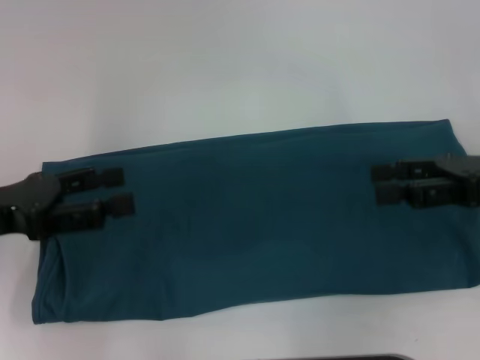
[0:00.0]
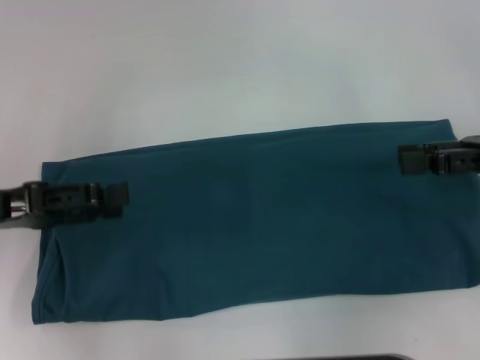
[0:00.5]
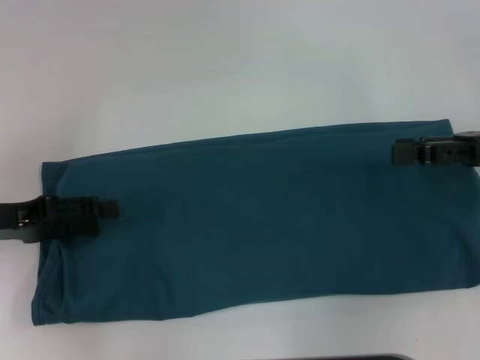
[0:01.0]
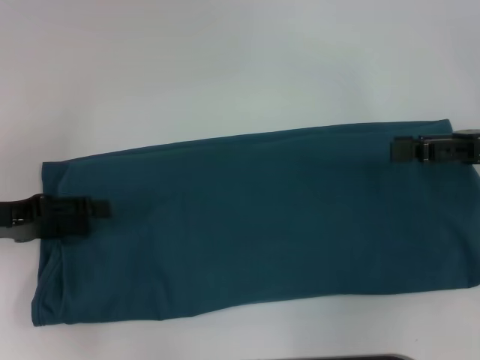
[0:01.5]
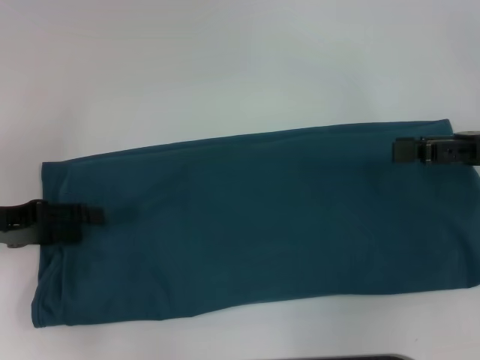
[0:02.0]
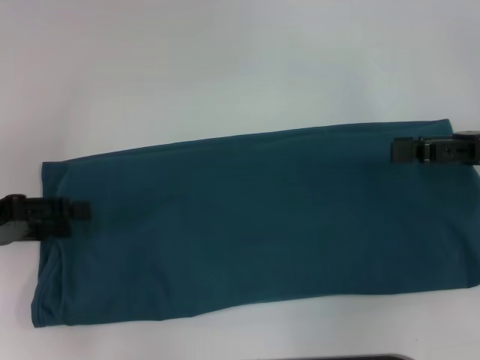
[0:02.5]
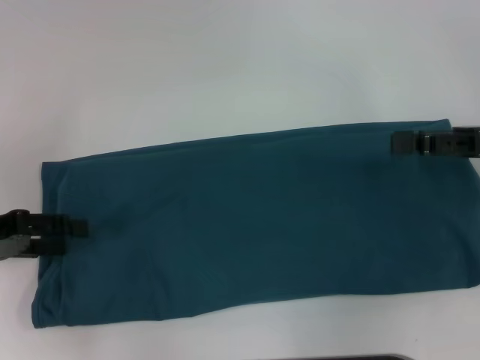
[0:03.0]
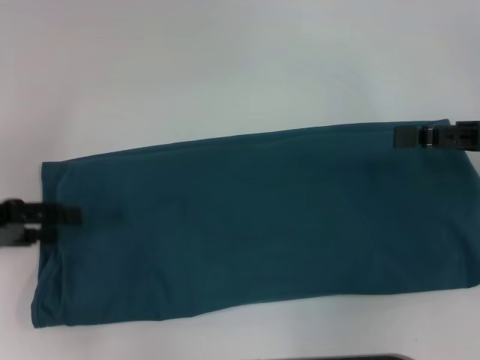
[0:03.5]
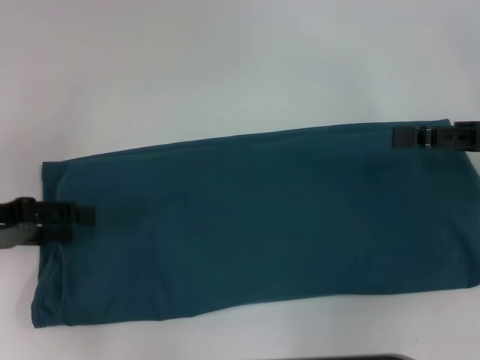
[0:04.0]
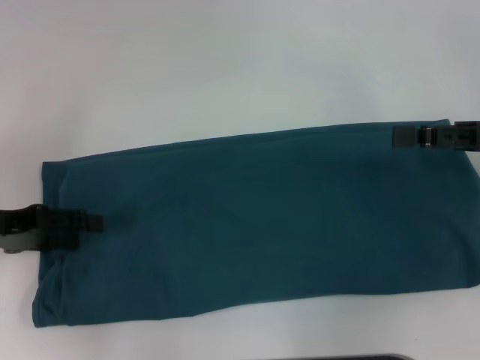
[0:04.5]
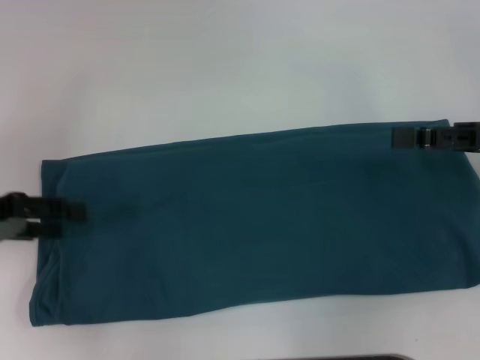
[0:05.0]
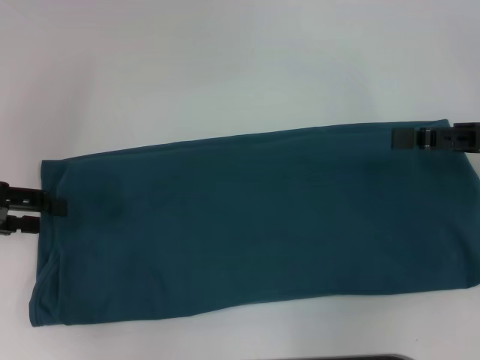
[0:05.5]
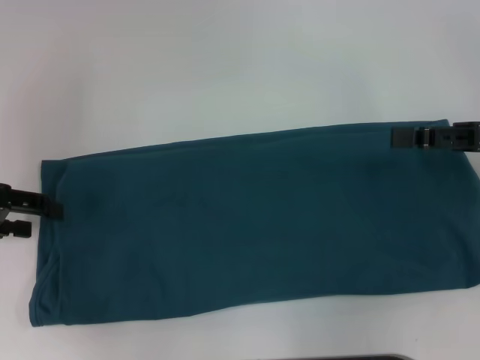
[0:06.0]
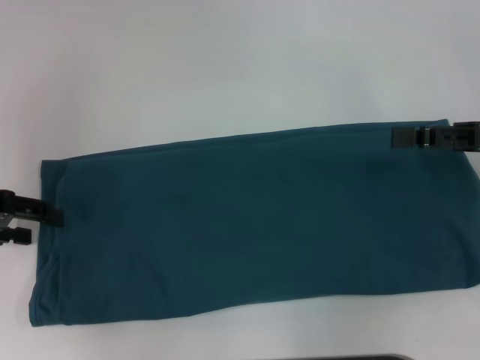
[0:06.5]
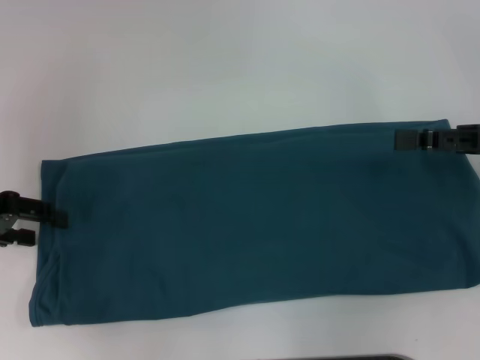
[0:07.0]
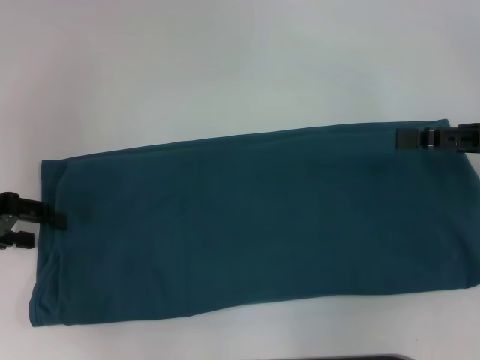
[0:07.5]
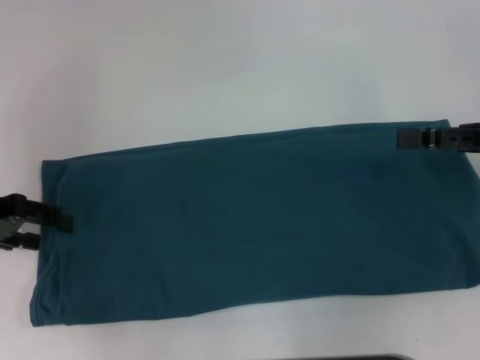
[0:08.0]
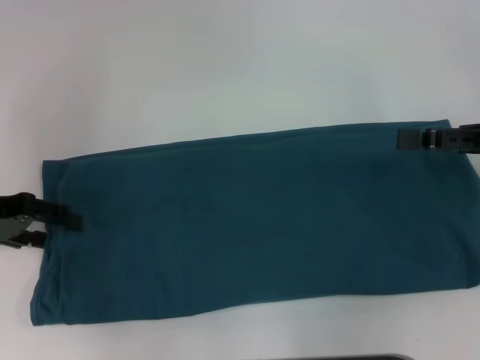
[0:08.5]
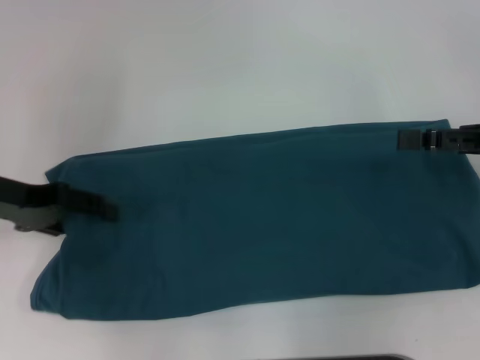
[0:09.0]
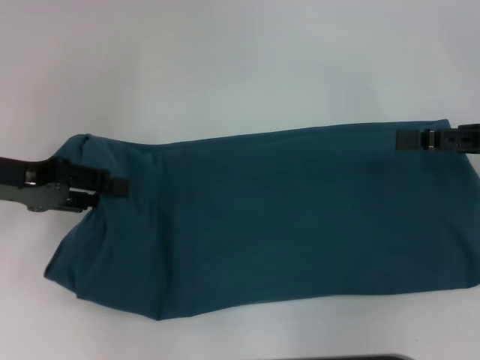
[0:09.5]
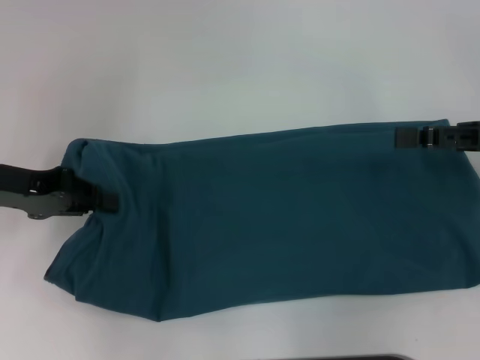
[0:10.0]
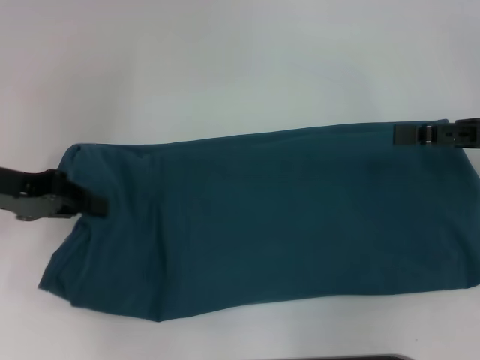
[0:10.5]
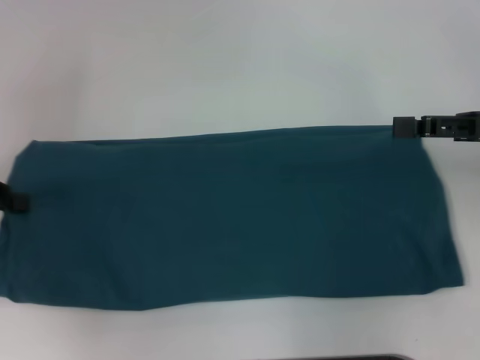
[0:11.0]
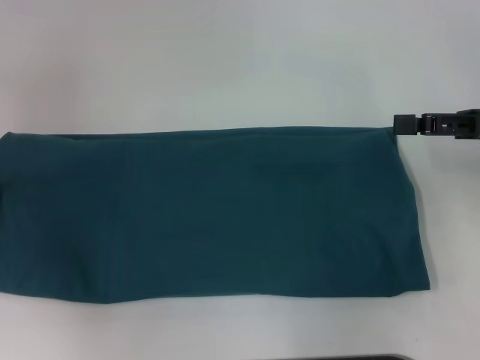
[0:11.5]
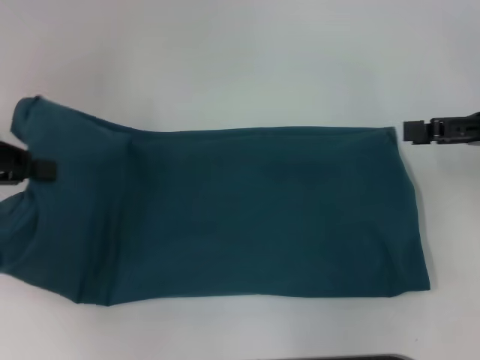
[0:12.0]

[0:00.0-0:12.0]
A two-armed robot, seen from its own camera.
0:00.0 to 0:02.0: The left gripper shifts by about 5 cm.
0:02.0 to 0:08.0: There are only small adjustments of the grippers.
0:08.0 to 0:10.0: The left gripper closes.
0:10.0 to 0:12.0: The left gripper moves upward, roughly 5 cm.

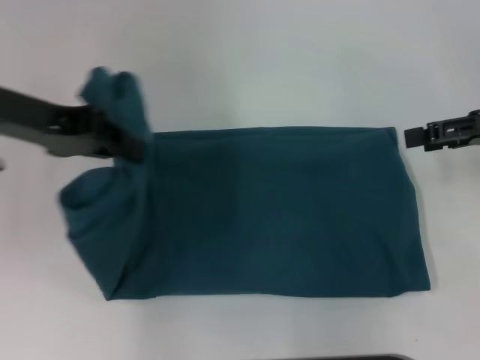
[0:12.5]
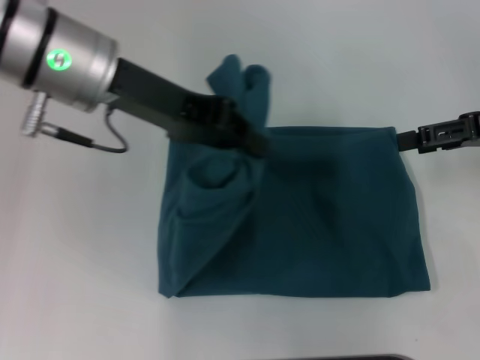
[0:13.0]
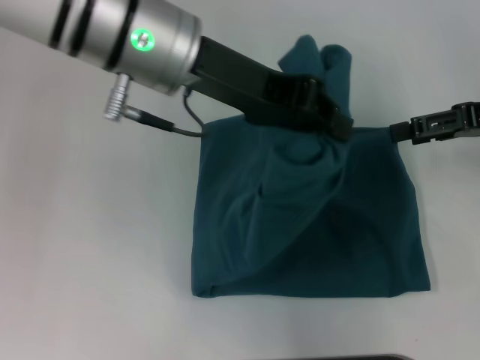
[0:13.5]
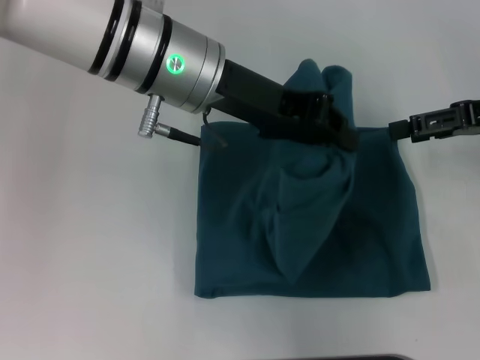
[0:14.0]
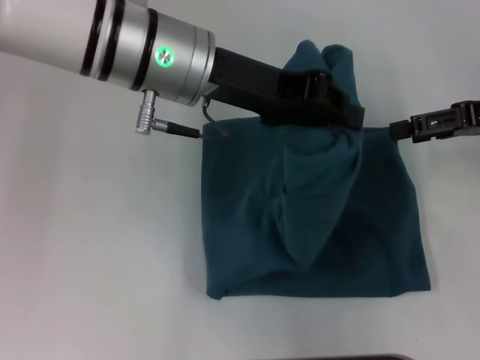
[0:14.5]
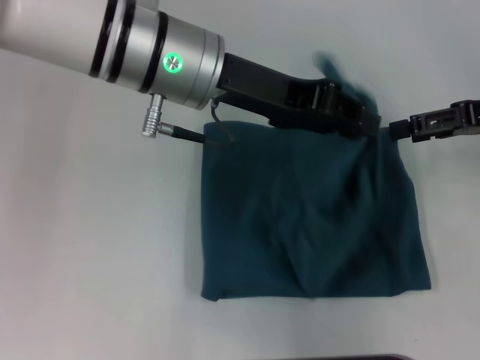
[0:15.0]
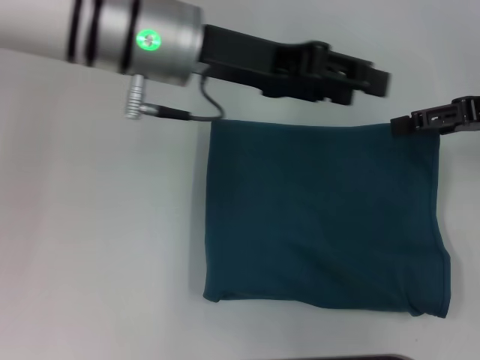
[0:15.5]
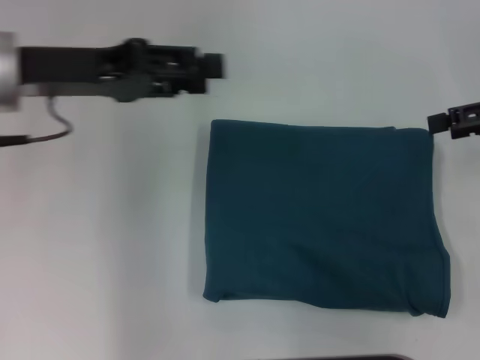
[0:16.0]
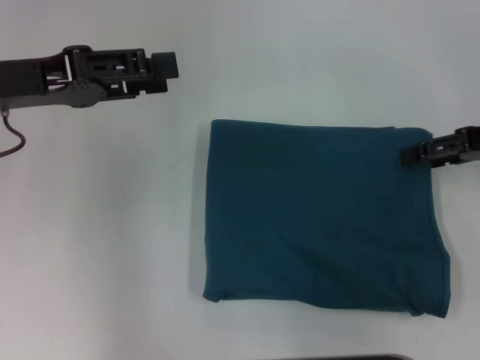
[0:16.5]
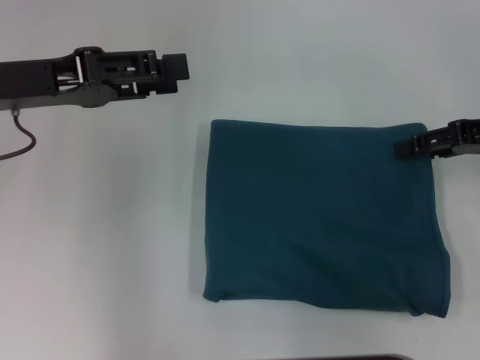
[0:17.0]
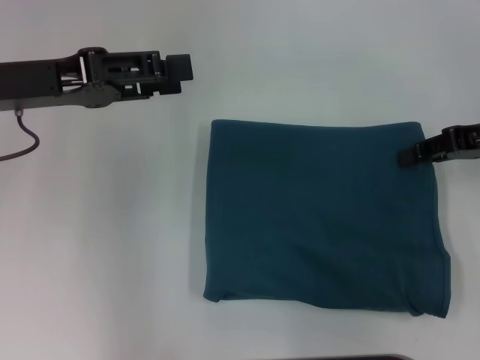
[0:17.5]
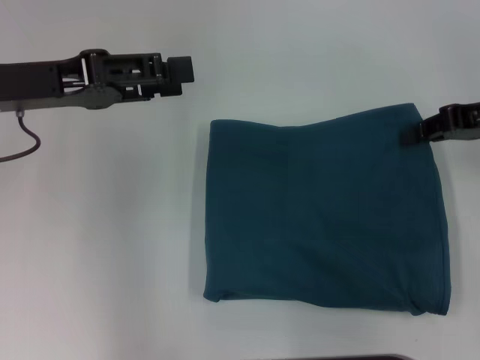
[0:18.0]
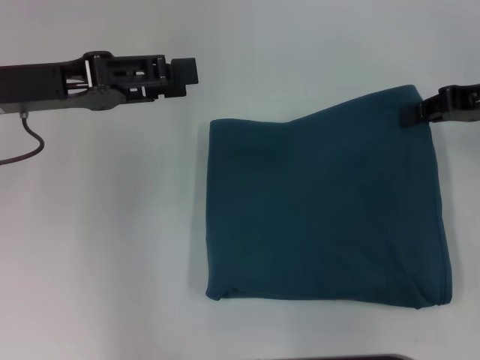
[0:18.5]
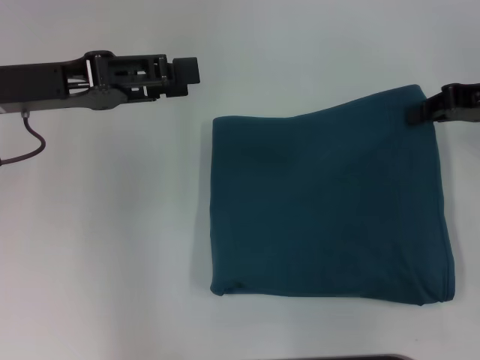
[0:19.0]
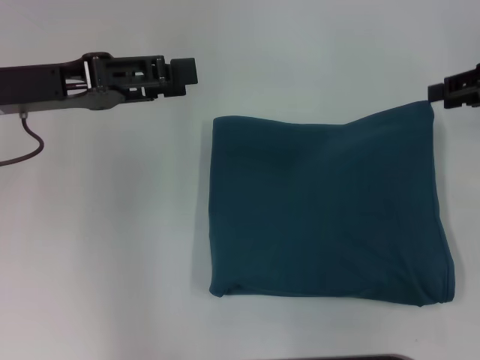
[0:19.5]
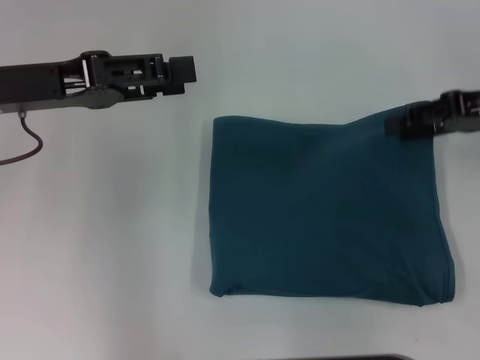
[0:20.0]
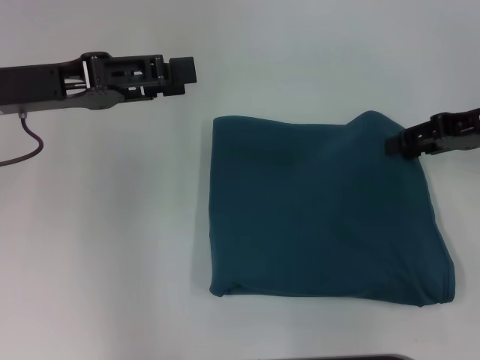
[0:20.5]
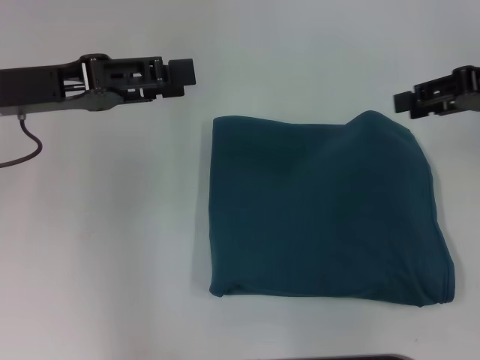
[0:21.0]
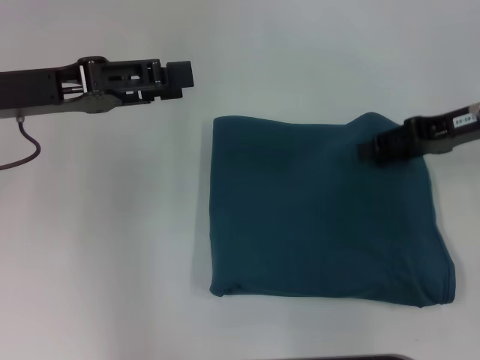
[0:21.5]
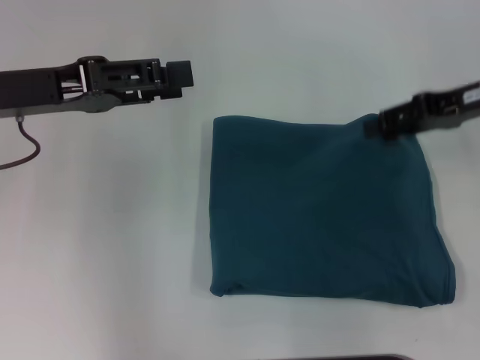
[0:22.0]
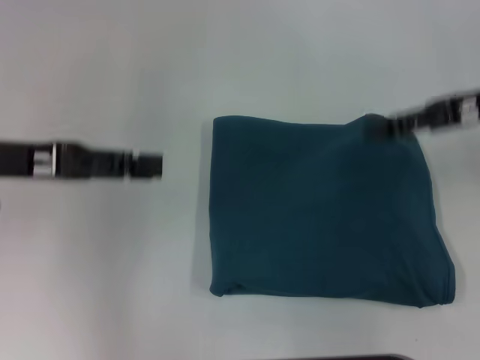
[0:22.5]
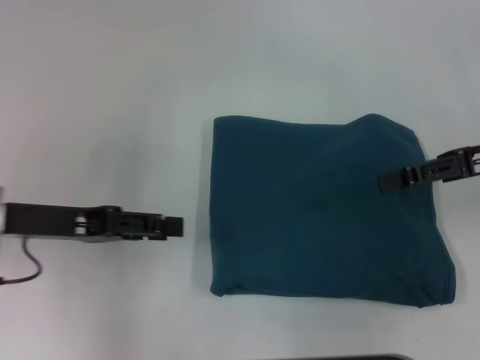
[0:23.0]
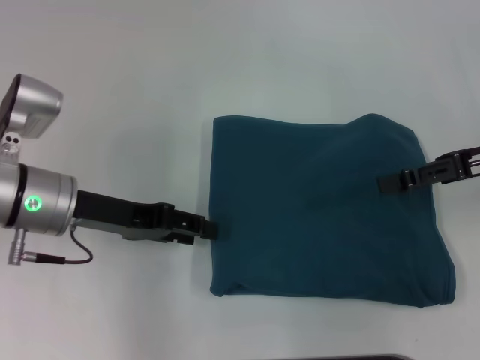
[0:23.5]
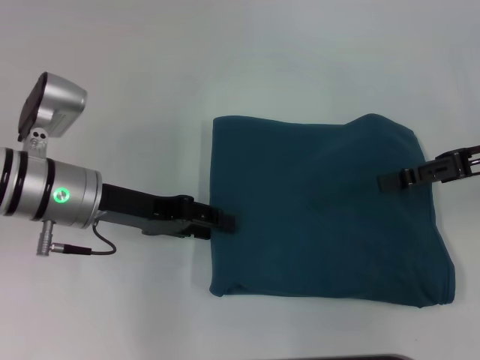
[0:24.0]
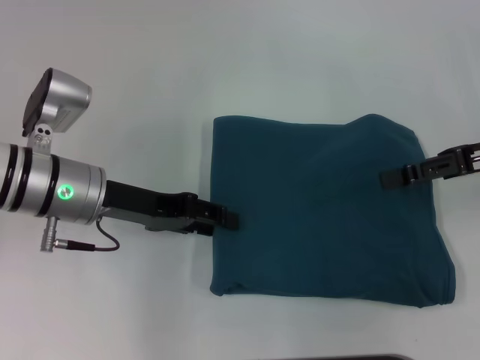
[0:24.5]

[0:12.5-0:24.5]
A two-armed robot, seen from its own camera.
Step, 0:12.5 to 0:15.0: Fold the clothes to the left.
0:12.5 to 0:14.5: The left gripper goes roughly 15 cm to the right.
0:14.5 to 0:16.5: The left gripper moves to the left, some 15 cm, and opens its fingers.
0:16.5 to 0:18.5: The right gripper closes its fingers.
0:18.5 to 0:20.5: The right gripper opens up.
0:20.5 to 0:22.5: The right gripper swings up and down, roughly 5 cm each way, with 2 reversals.
0:22.5 to 0:24.5: The left gripper is displaced downward and to the right by roughly 10 cm.

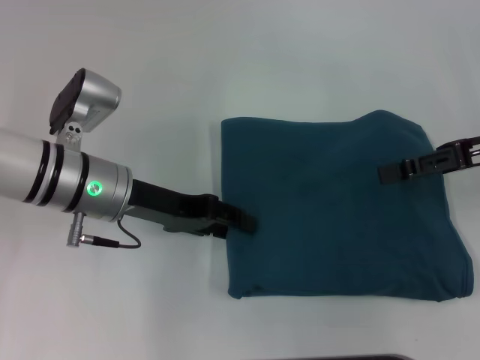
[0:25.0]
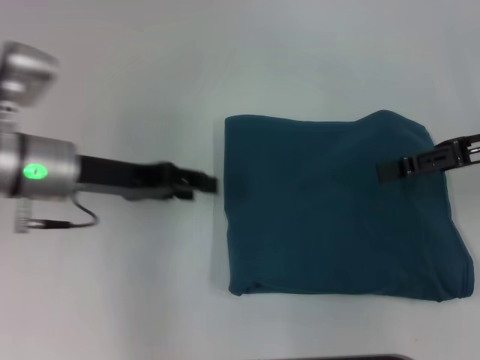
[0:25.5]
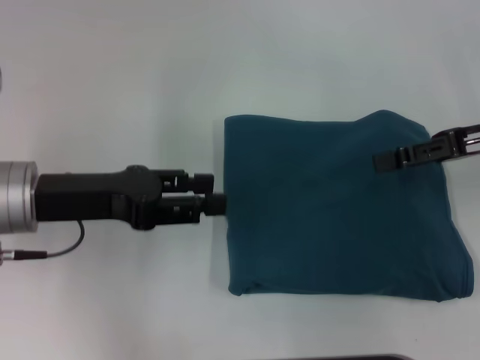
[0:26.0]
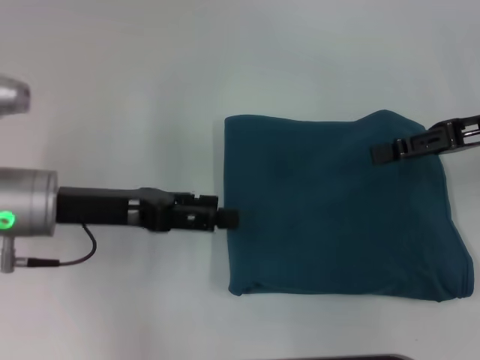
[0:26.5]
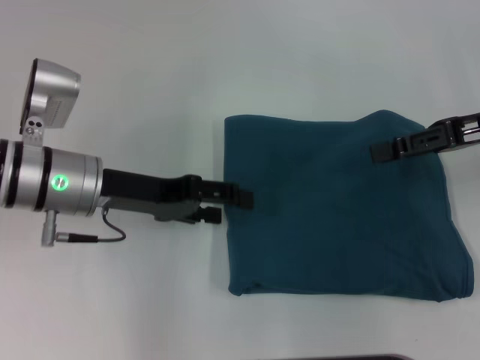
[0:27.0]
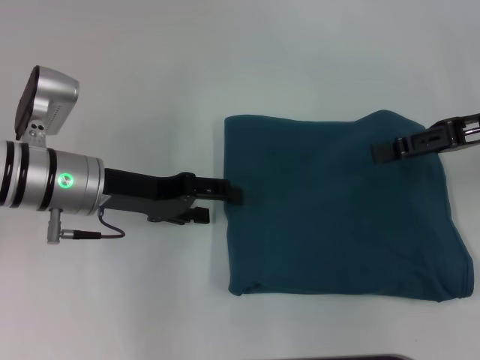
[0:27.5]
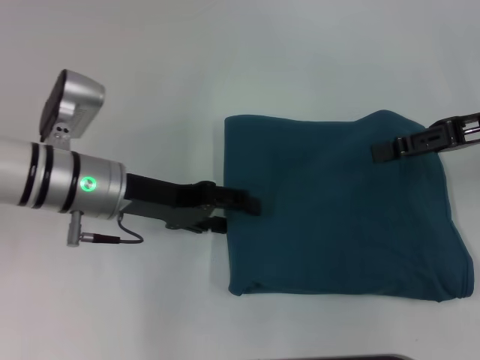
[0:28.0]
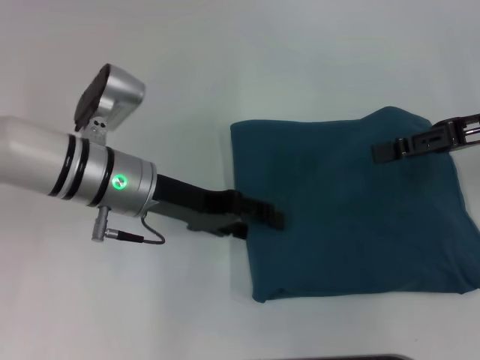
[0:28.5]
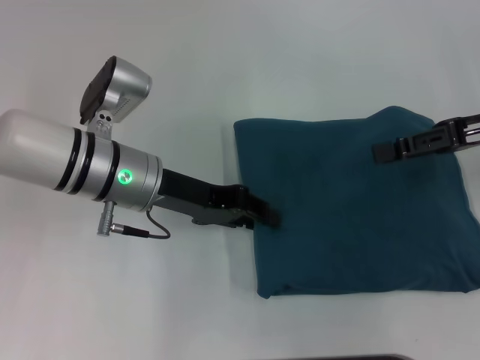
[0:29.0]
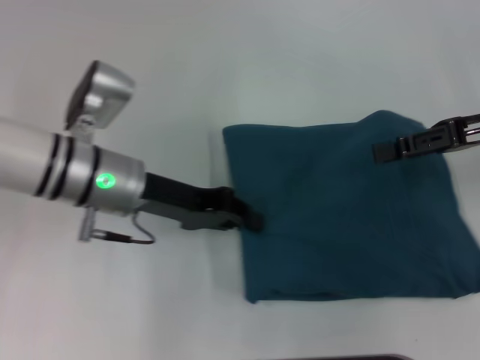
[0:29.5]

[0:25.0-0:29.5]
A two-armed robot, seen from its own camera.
0:27.0 to 0:29.5: The left gripper closes its fingers.
